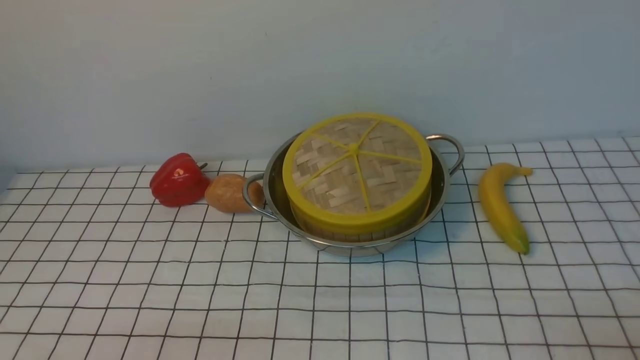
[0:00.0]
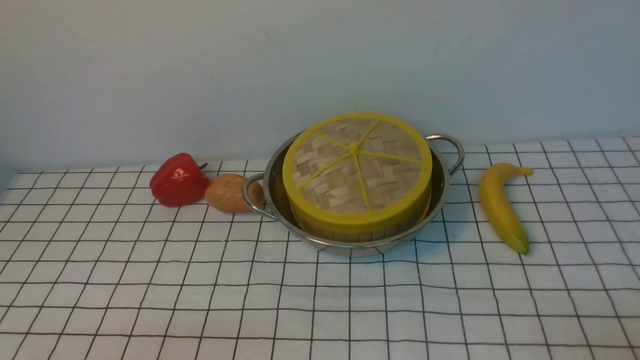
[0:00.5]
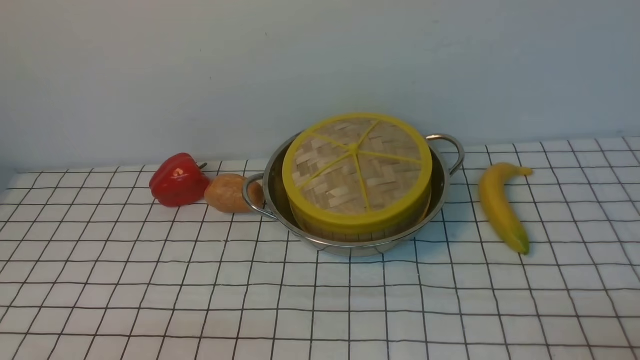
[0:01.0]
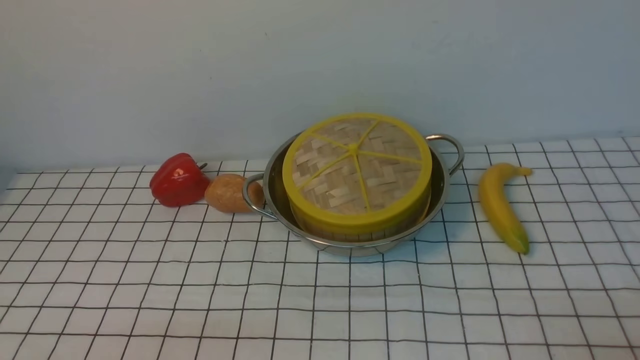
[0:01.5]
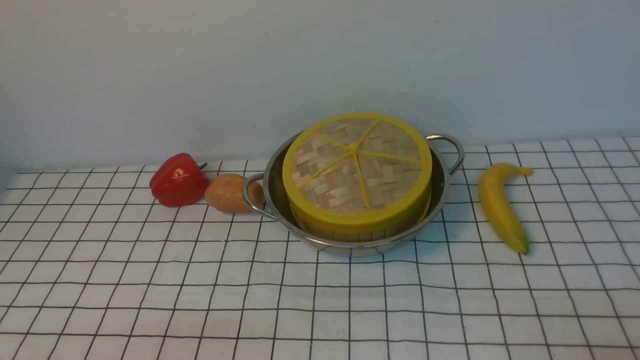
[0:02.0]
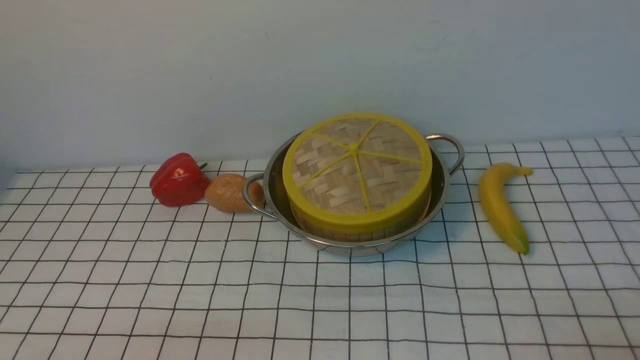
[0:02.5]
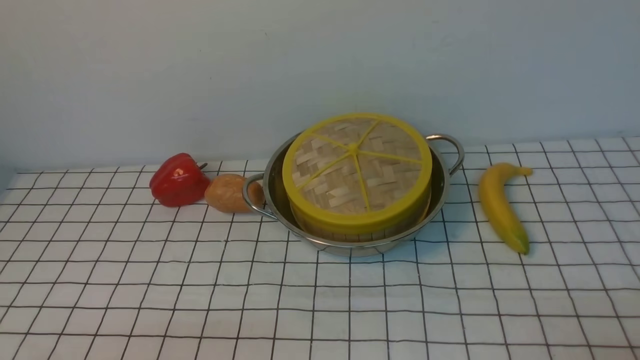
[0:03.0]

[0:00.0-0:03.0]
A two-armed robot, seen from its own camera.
Task of the whole recording: place the steamer in the pot on the white tablecloth, and put the lid on the steamer.
0:01.5 to 0:03.0: The two grippers keep their place.
